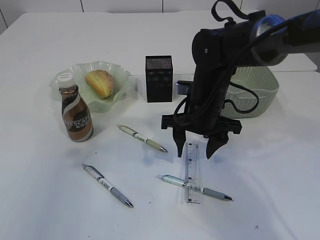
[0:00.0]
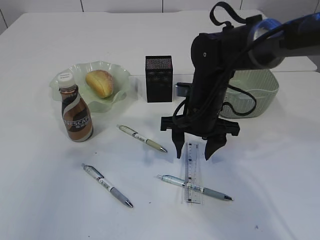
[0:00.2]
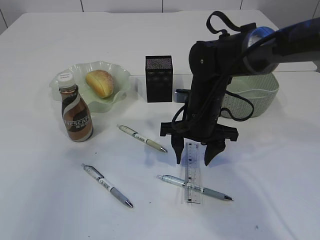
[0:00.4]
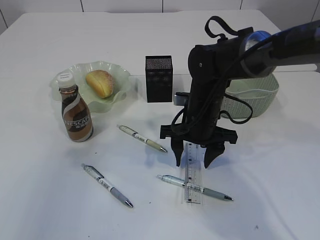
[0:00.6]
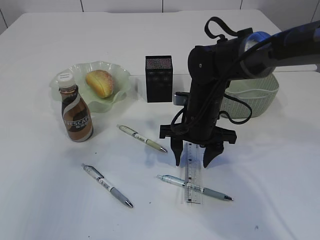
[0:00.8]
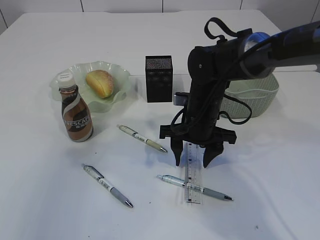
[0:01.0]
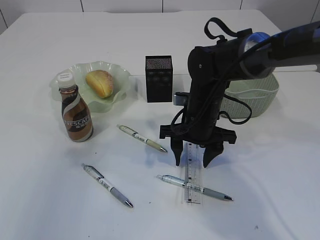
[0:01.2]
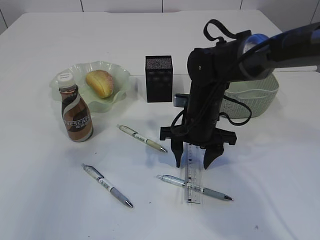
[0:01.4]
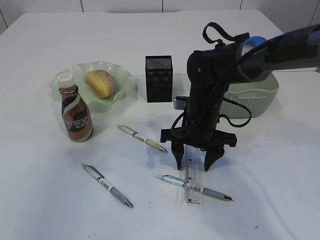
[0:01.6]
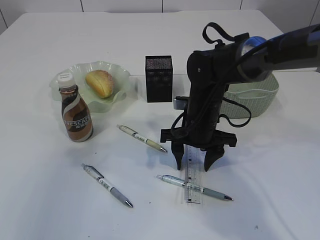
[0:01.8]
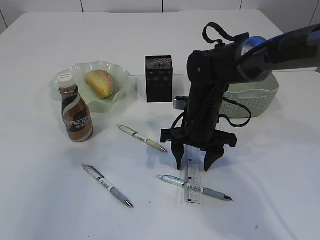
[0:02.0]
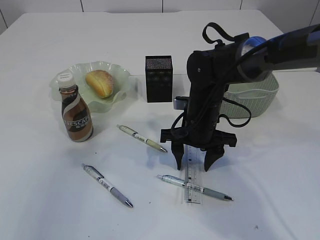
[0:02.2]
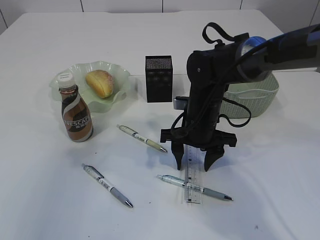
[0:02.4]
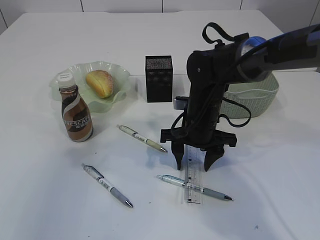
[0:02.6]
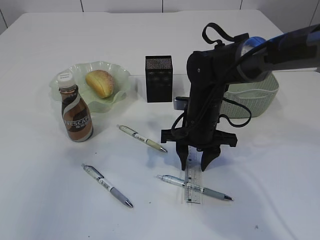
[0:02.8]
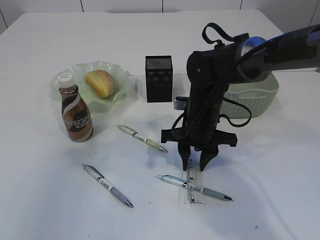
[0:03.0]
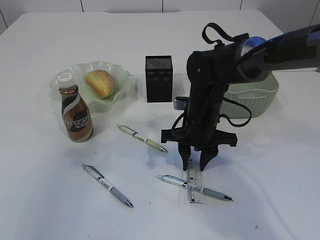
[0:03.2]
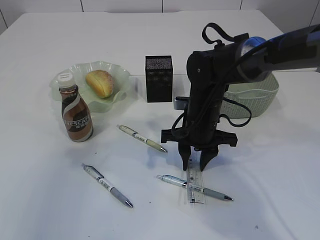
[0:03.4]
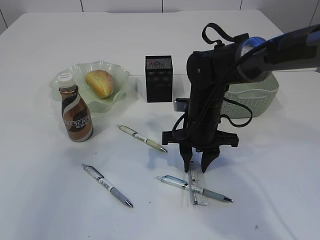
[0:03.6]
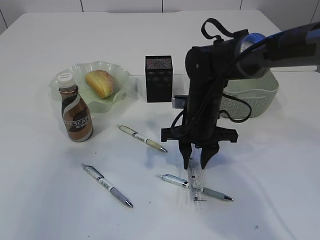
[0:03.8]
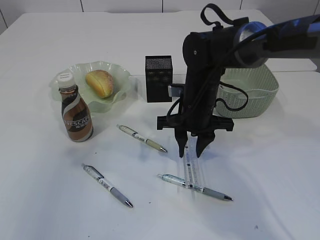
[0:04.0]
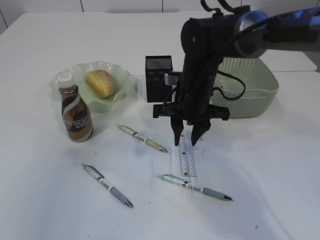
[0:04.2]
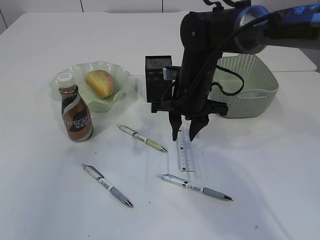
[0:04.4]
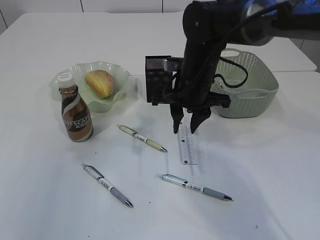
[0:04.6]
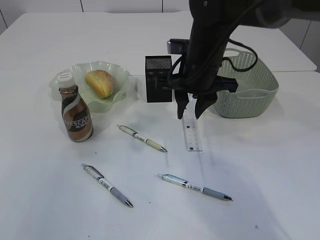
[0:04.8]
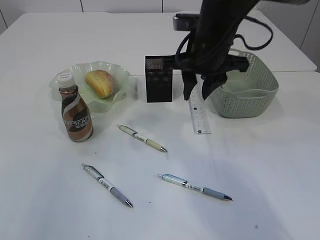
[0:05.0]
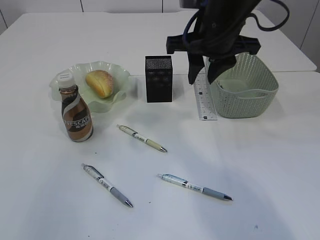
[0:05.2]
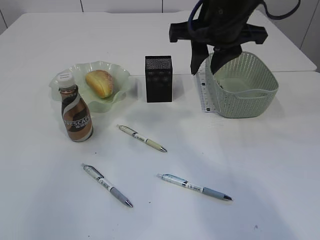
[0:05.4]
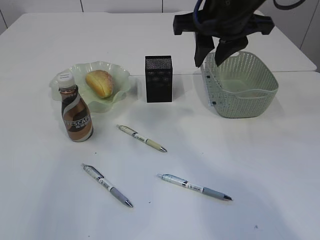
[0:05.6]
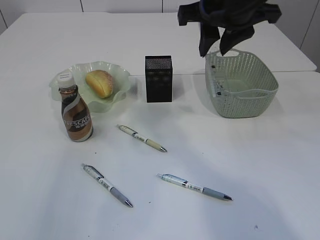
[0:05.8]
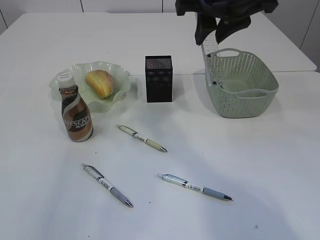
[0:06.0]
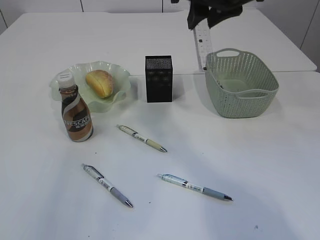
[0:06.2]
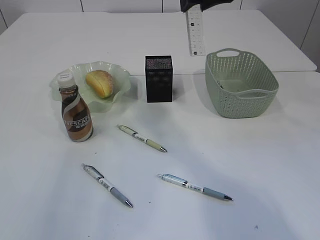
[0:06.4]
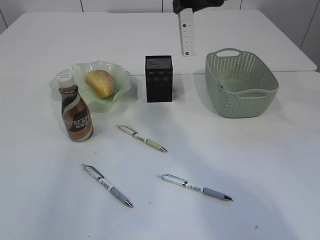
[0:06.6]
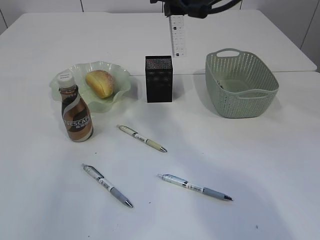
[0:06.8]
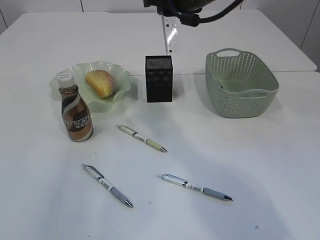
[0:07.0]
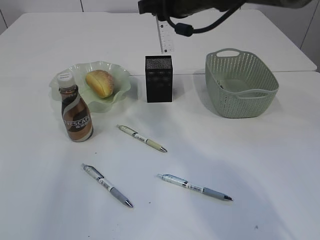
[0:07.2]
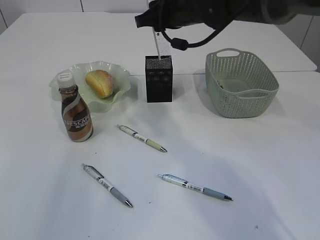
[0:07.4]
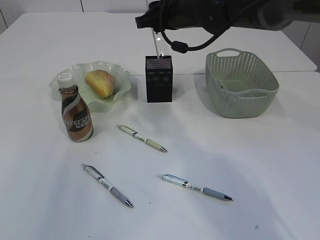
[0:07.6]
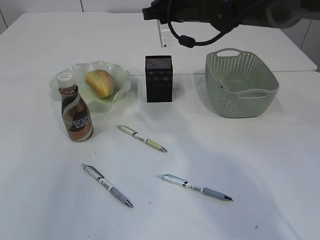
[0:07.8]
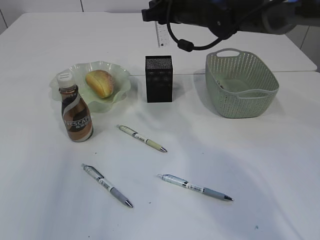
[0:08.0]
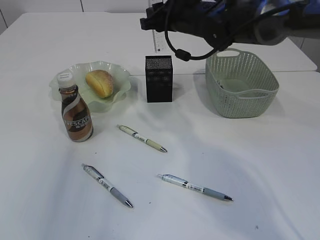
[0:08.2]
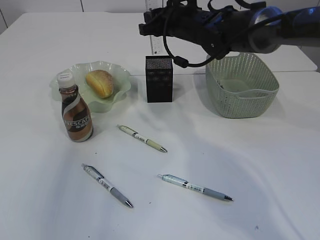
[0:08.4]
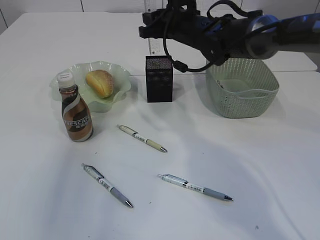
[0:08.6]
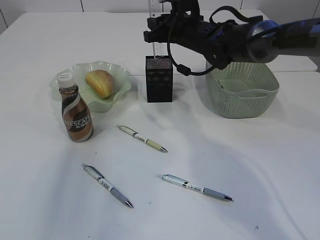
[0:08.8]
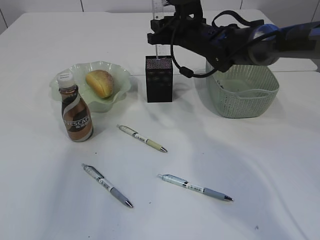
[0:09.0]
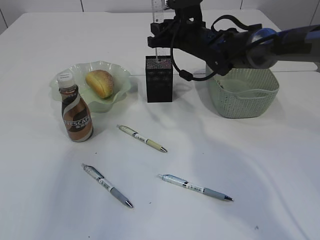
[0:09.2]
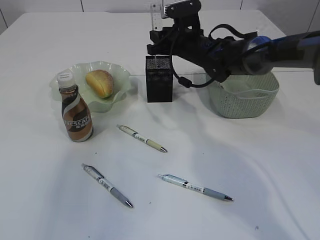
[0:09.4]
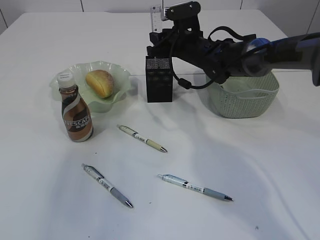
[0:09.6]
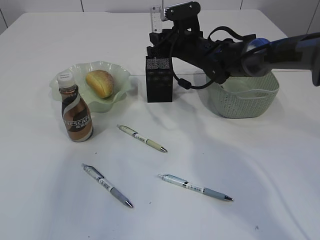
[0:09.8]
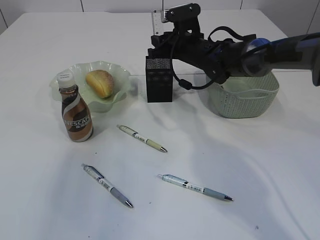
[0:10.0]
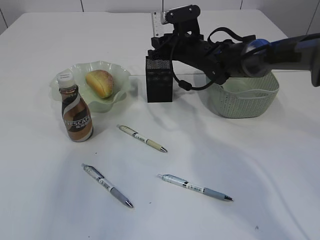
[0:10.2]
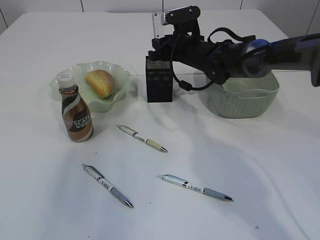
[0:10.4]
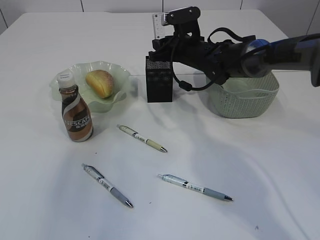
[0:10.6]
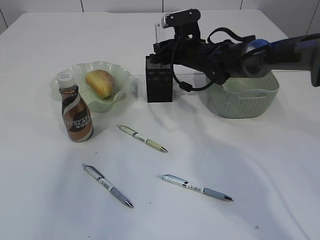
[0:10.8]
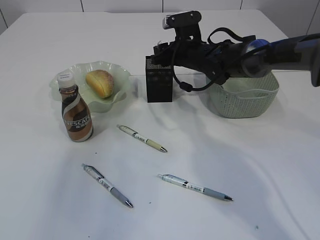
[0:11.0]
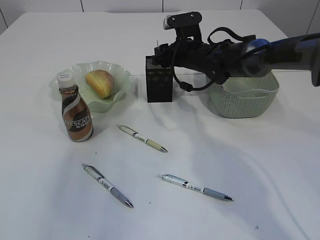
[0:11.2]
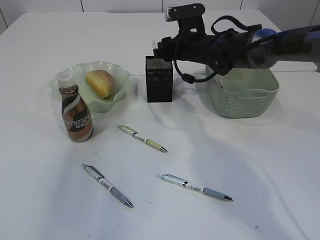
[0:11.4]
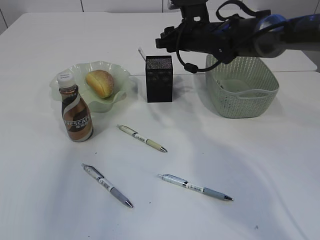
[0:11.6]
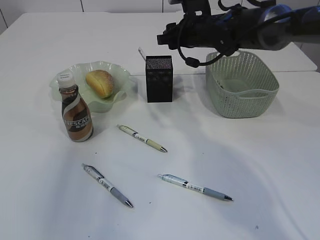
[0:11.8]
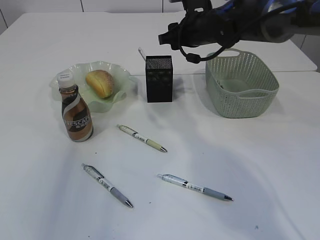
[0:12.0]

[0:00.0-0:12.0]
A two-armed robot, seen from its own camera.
Step, 0:00.0 to 0:04.8: pick up the ruler.
Step, 0:05.0 to 0:11.4: Place the ruler into the pen holder.
0:00.0 to 0:01.6: The grippers stay close to where they were, moving slightly.
0:01.6 to 0:03.0: The right gripper closes.
0:03.0 to 0:04.4: The right gripper shifts roughly 5 cm upward.
0:04.4 to 0:06.0: The right gripper heads upward, covering about 20 cm.
0:06.0 to 0:07.6: The right gripper goes some 15 cm forward and downward.
0:07.6 to 0:09.0: The right gripper heads downward, covering some 5 cm.
0:09.0 to 0:10.4: The grippers make only small movements.
0:10.4 to 0:12.0: The right gripper shifts approximately 5 cm upward.

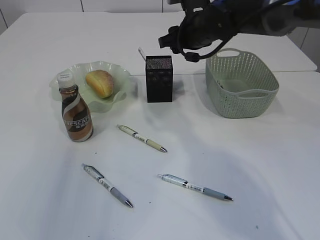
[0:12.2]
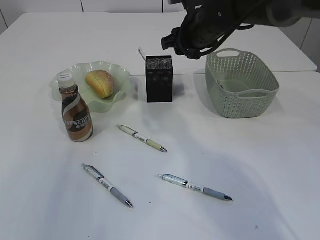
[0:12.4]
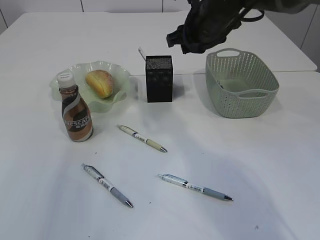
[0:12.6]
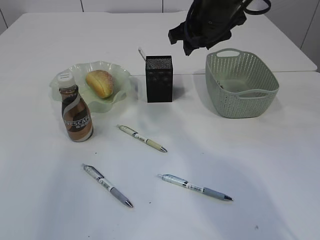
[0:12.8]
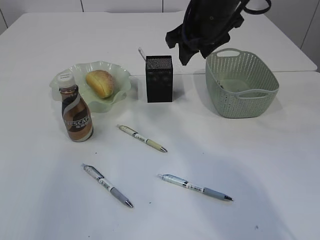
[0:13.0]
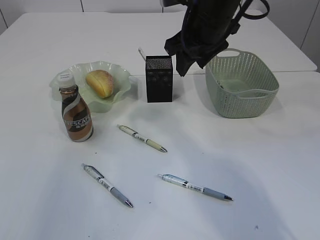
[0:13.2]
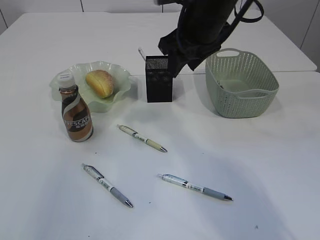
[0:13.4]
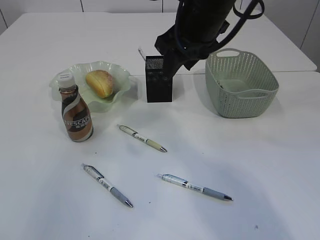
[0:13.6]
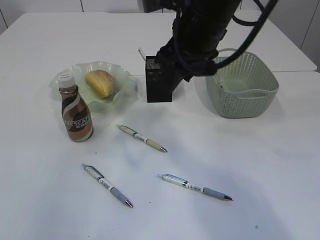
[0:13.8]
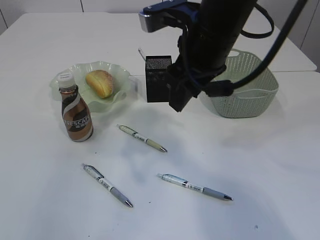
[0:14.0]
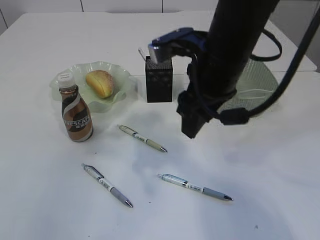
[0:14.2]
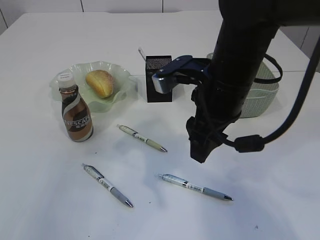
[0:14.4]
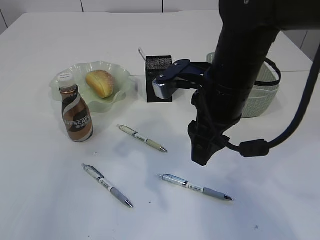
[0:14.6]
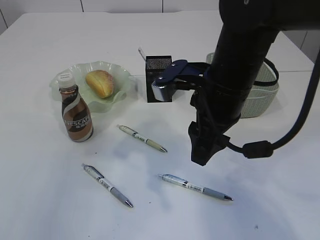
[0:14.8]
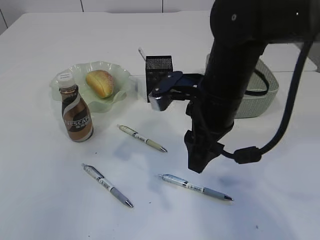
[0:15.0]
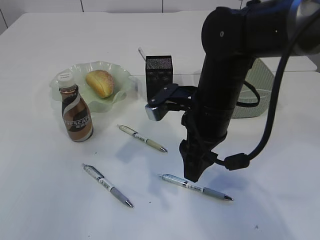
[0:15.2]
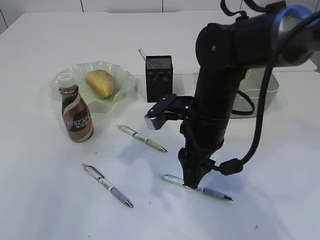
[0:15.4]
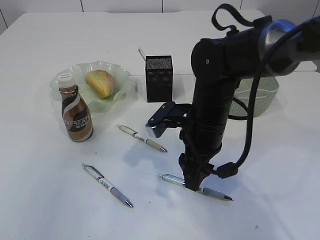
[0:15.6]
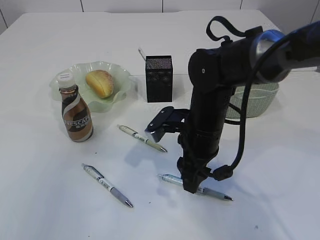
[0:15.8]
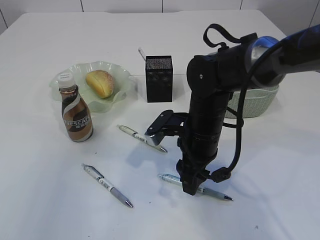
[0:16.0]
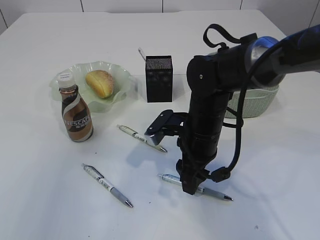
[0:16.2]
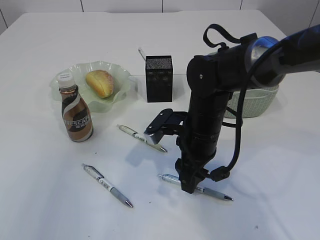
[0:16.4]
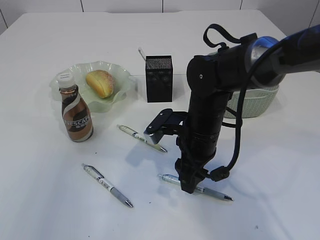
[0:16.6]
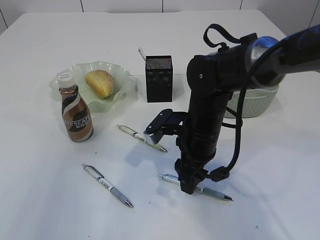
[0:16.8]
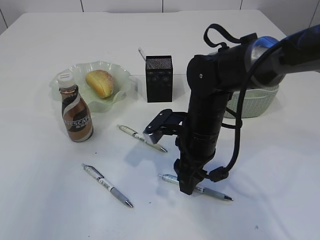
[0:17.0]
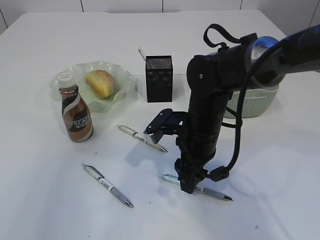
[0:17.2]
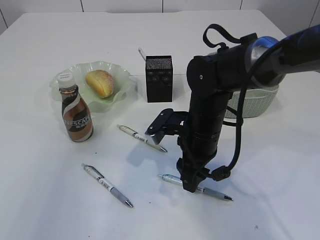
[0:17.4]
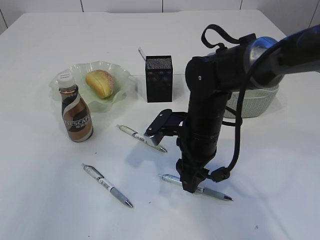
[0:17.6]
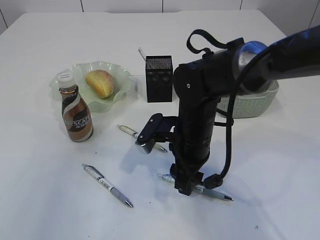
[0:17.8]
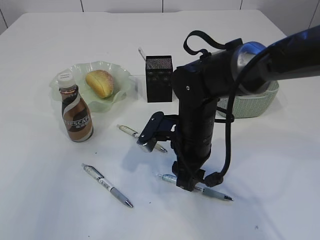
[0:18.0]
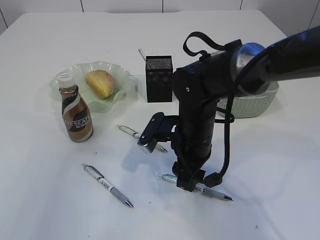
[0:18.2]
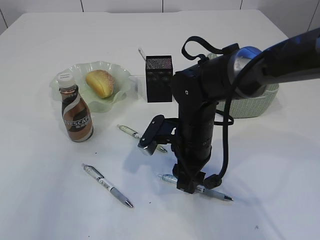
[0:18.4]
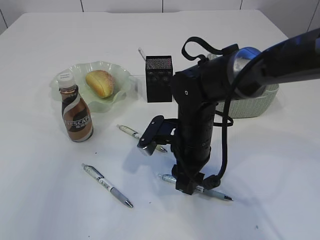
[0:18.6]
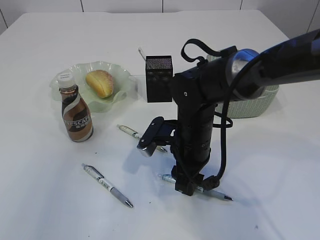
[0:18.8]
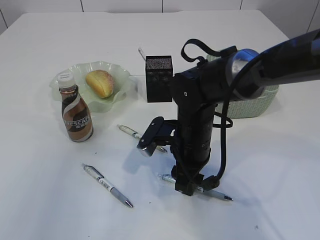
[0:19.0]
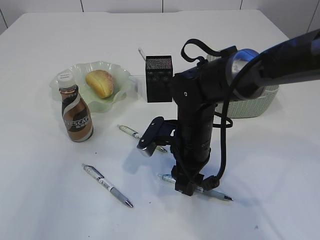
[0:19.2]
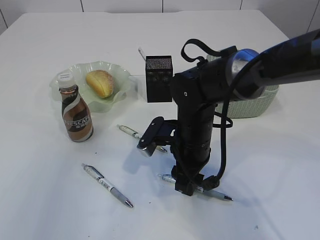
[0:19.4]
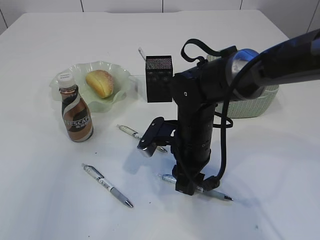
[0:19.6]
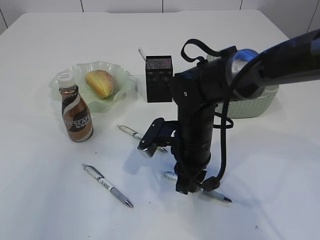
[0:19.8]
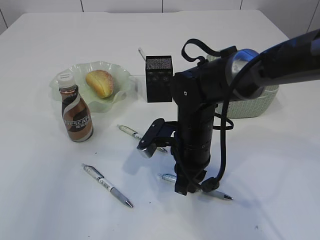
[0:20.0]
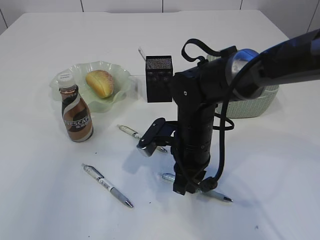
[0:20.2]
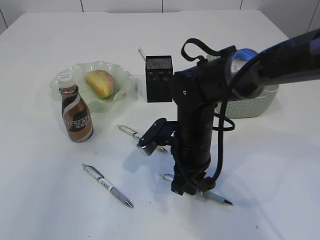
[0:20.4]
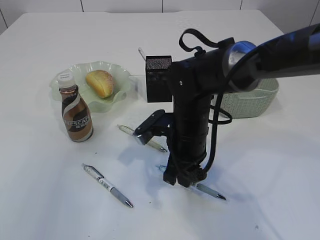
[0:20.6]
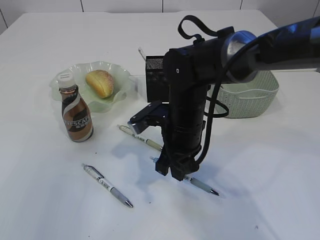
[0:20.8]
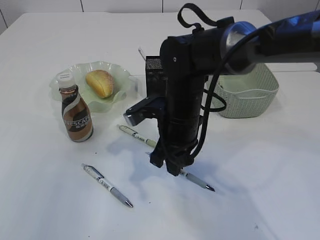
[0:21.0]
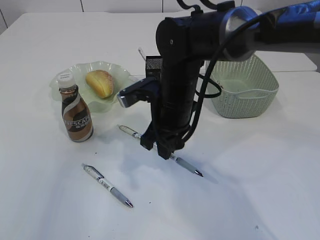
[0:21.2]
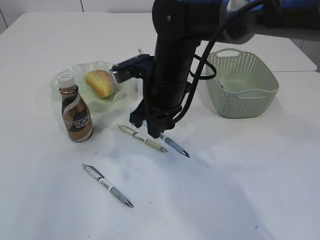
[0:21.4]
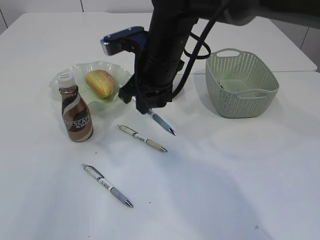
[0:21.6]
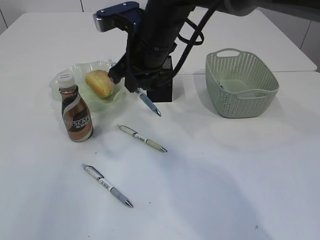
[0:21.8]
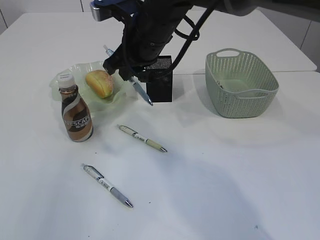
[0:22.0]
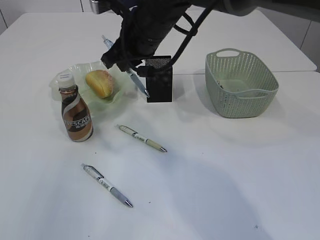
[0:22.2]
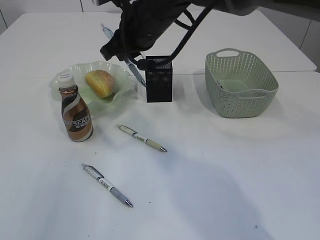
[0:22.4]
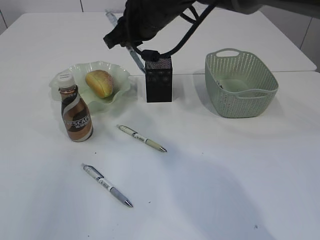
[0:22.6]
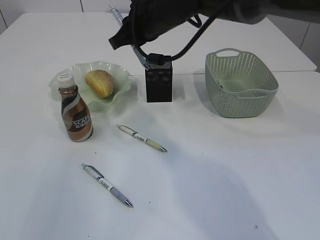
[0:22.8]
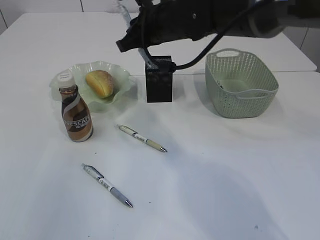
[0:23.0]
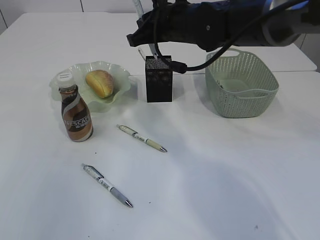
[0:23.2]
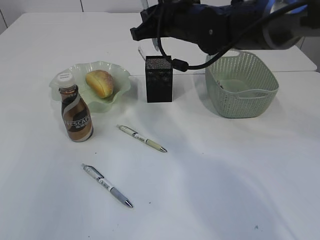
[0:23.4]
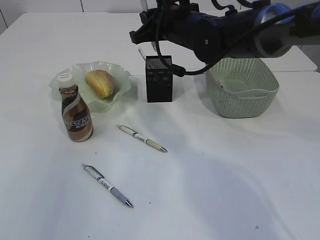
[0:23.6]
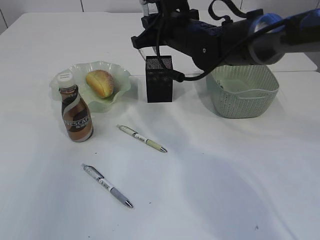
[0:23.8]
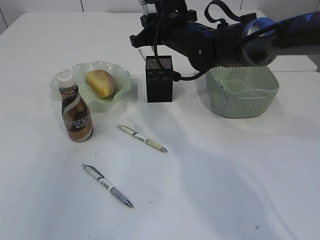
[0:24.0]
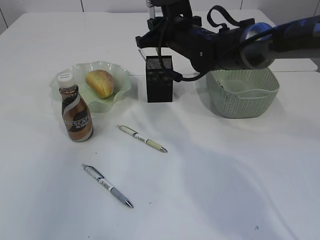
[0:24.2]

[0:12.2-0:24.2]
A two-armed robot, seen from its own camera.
Step, 0:12.2 to 0:21.6: Pick up the pen with right arm.
0:12.2 to 0:13.8: The right gripper heads backward and upward, covering about 15 cm.
0:13.8 to 0:15.2: The right gripper travels downward by roughly 10 cm.
0:15.2 to 0:16.6: The right gripper travels downward by roughly 5 cm.
0:16.6 to 0:18.2: The grippers make only small movements.
0:18.2 to 0:19.8: The right gripper closes up.
0:19.8 to 0:21.2: The right gripper moves upward, approximately 5 cm.
0:21.2 to 0:22.6: The right gripper goes approximately 15 cm upward and forward.
0:22.6 to 0:24.2: The right gripper goes approximately 10 cm downward and to the right.
